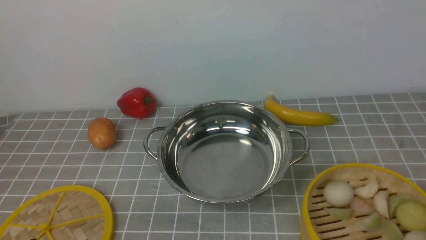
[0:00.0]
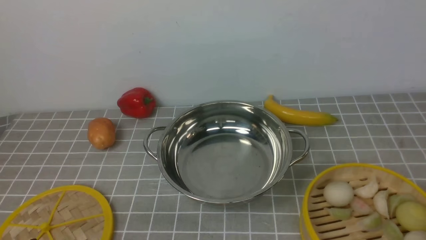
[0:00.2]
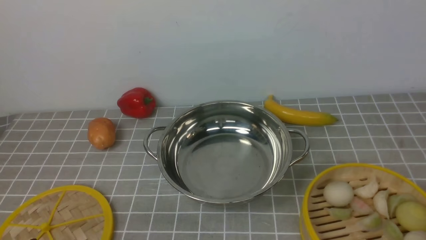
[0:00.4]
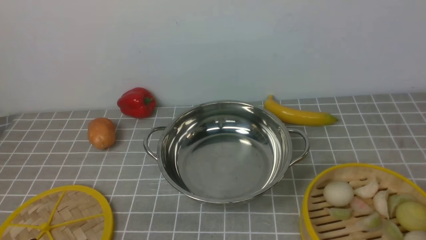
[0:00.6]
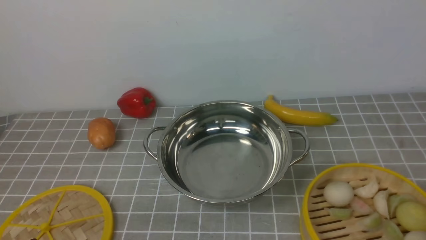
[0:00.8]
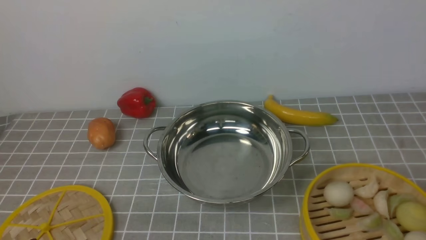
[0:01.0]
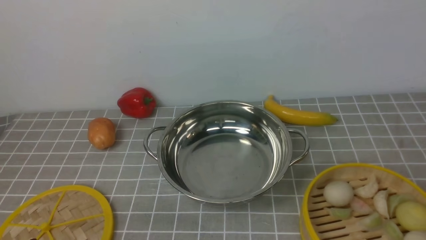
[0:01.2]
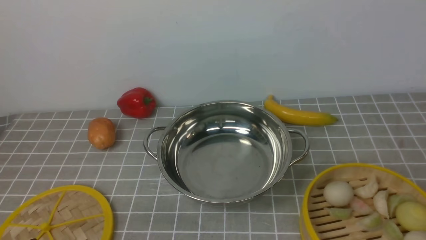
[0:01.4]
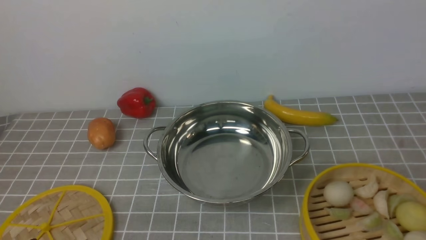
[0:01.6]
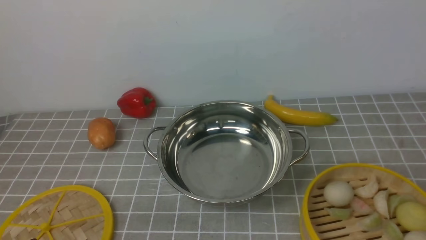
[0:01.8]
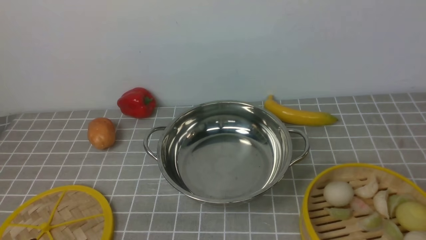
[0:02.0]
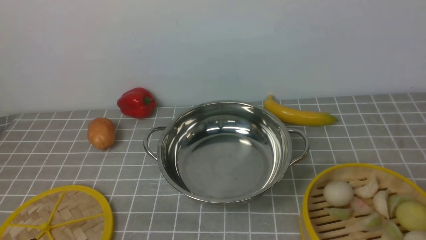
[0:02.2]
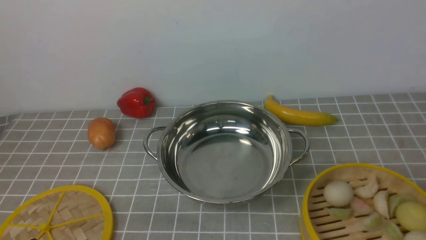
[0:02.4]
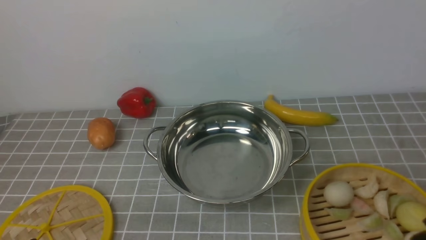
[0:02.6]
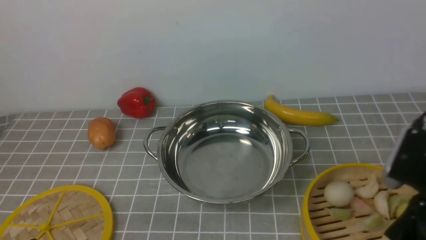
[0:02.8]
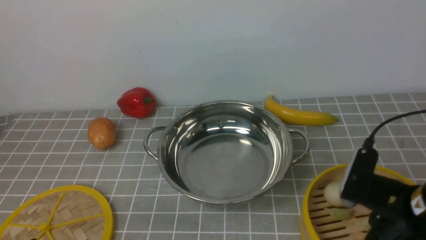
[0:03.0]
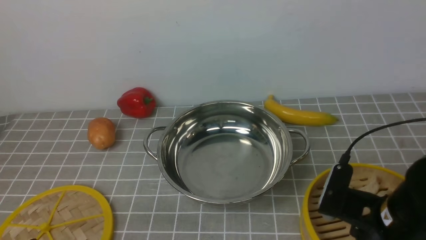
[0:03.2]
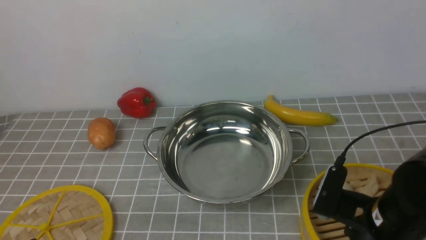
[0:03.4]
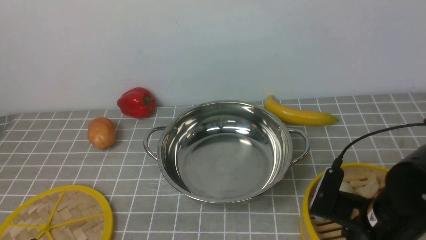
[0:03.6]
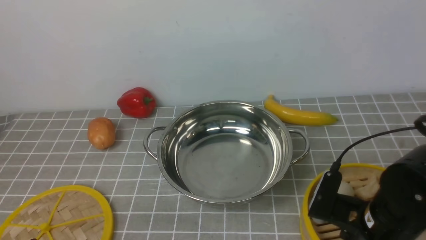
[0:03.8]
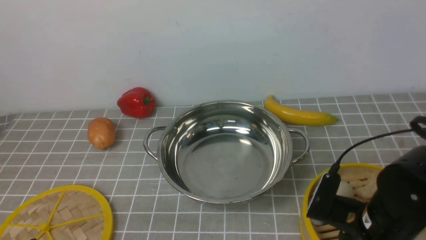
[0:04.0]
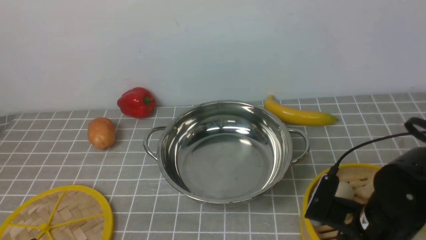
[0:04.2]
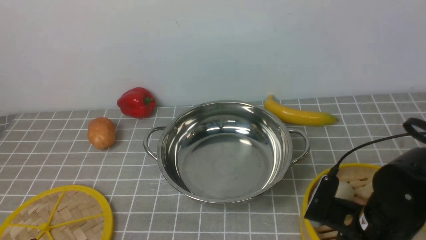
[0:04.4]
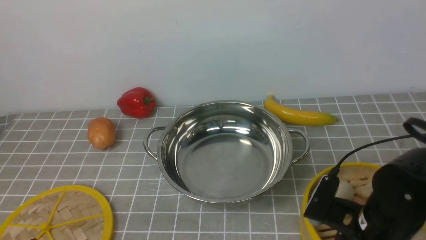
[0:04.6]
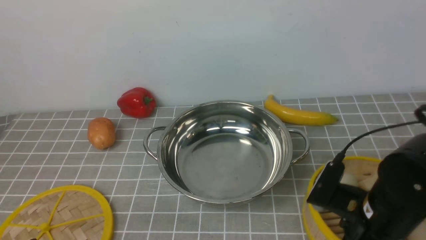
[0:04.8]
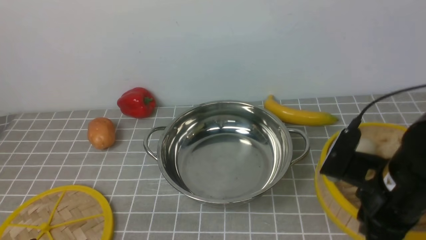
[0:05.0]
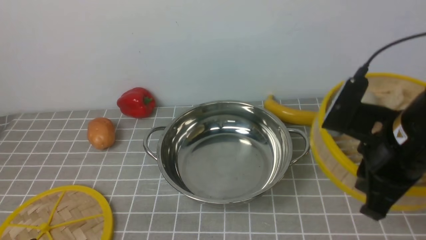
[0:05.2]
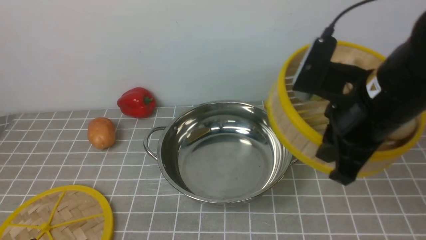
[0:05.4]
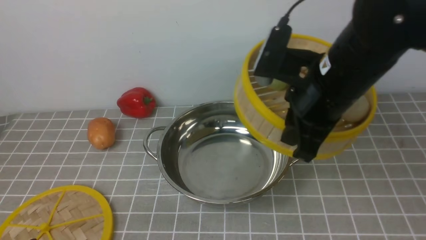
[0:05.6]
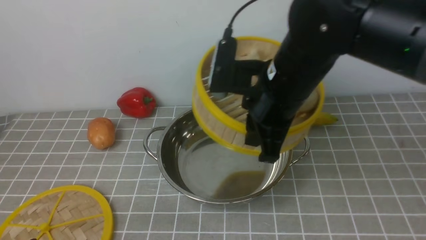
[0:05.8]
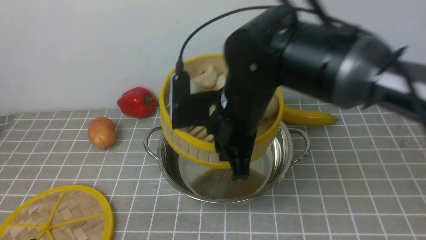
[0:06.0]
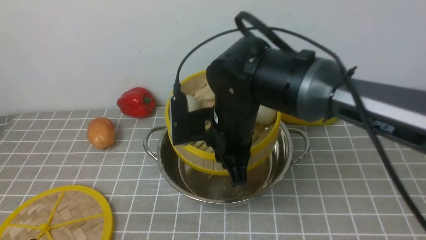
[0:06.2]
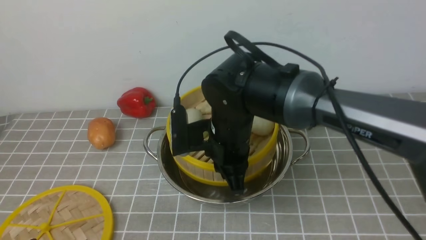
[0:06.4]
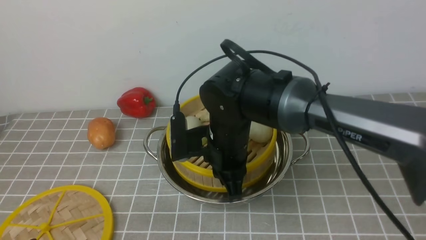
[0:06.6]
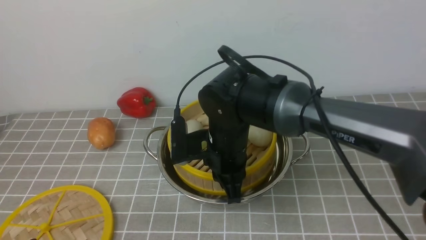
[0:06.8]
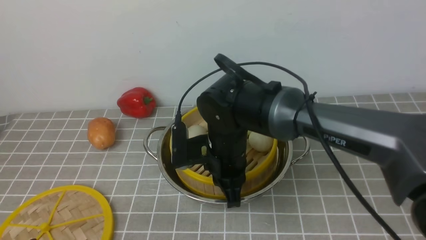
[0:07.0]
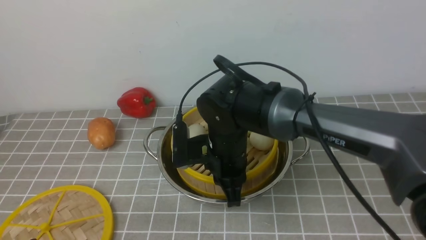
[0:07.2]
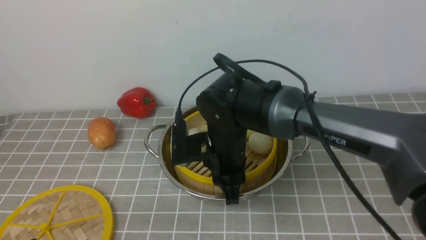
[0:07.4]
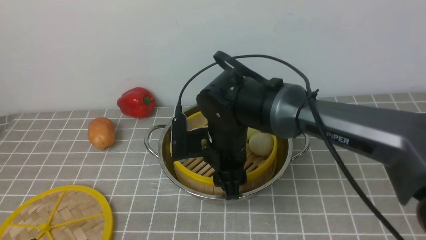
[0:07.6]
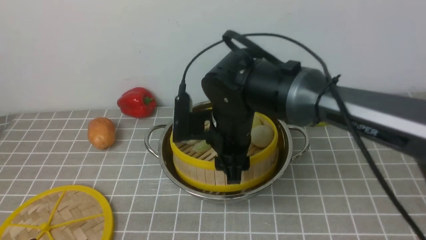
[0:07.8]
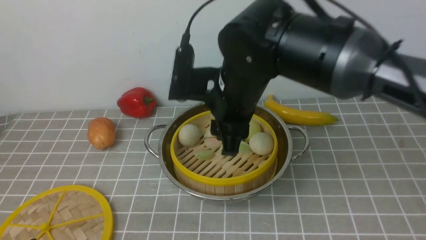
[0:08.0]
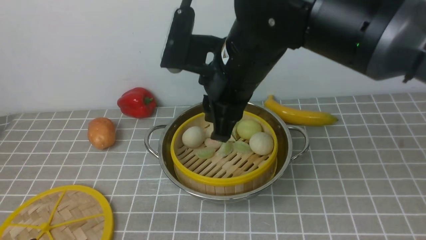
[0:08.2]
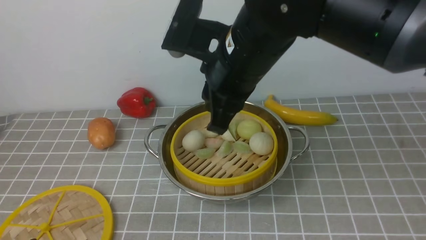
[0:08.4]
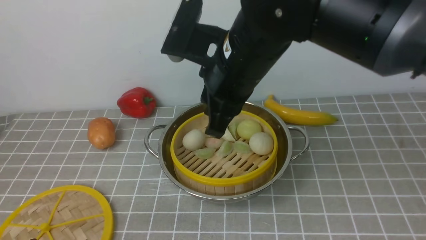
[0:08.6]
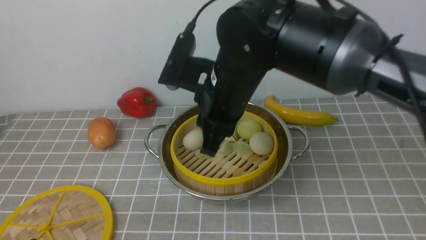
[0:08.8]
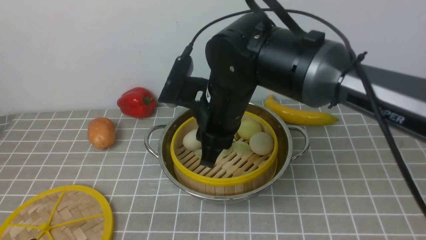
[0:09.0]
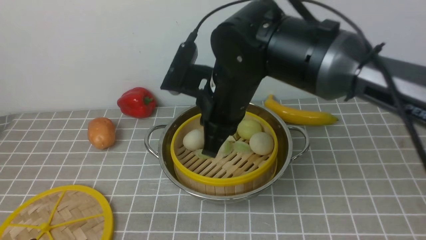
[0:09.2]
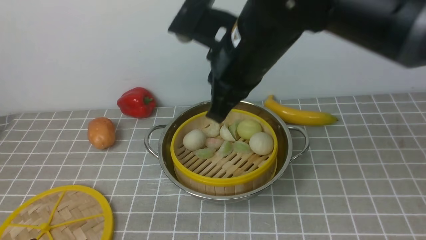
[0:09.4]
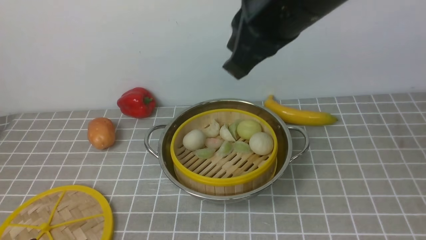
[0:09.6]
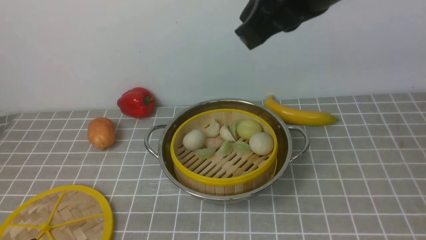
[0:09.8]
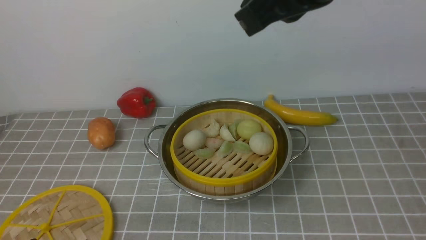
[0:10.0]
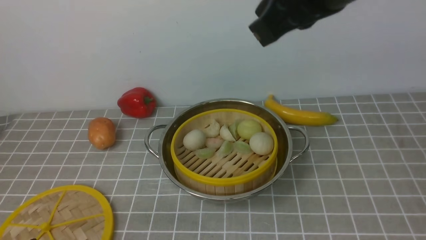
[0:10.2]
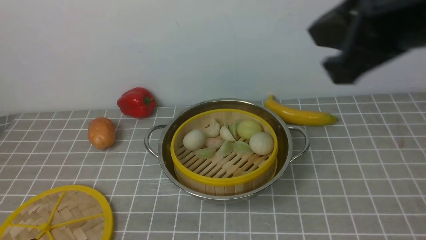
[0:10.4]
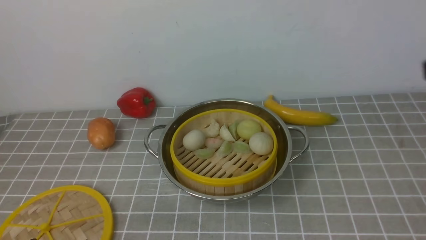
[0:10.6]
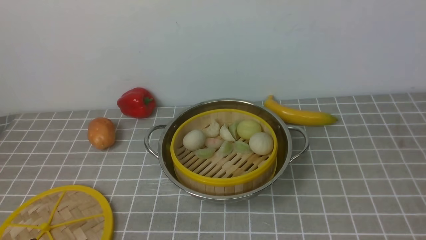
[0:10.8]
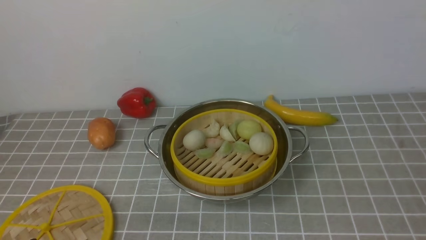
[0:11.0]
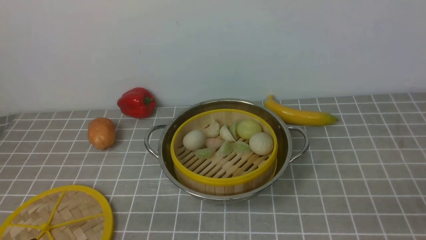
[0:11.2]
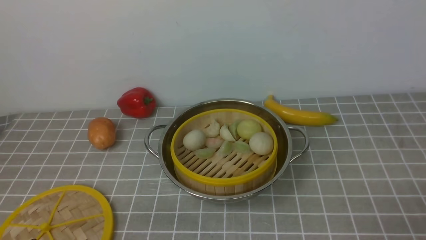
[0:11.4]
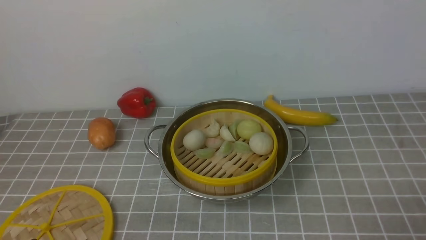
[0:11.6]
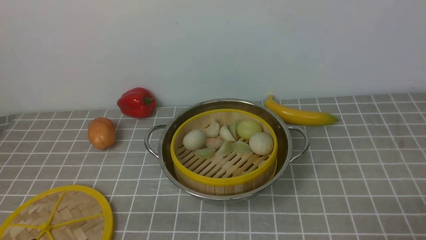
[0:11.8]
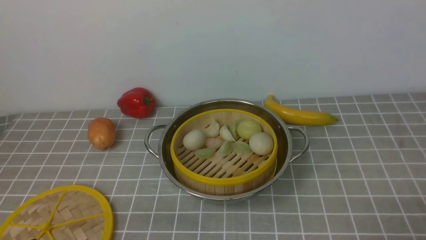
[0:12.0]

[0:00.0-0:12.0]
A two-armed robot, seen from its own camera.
Task of the whole recording: place the steamer in the pot on the grey tablecloth, and put the lid on the steamer.
Step, 0:00.0 to 0:04.8: use the right arm to lift the steamer closest to it.
Step, 0:05.0 to 0:07.8: use the right arm to put the steamer into the iron steamer pot in the middle.
0:01.6 to 0:03.0: The right gripper travels forward, downward and to the left by about 20 cm.
0:03.0 to 0:04.4: The right gripper goes roughly 10 cm downward.
0:04.4 to 0:06.0: The right gripper heads upward, to the left and forward, covering about 20 cm, and closes.
0:06.0 to 0:07.6: The right gripper is displaced downward and to the left by about 10 cm, and opens its fingers.
0:07.6 to 0:09.0: The right gripper travels upward by approximately 10 cm, and closes its fingers.
0:09.0 to 0:10.4: The right gripper is displaced upward, to the right and backward by roughly 25 cm, and closes up.
0:10.4 to 0:12.0: The right gripper goes roughly 35 cm downward, to the right and backward, and opens its fingers.

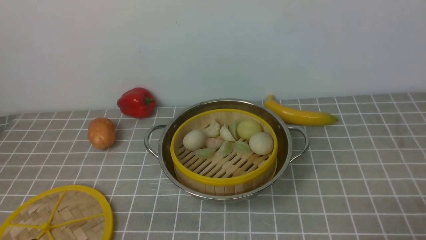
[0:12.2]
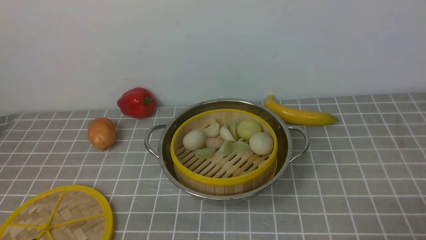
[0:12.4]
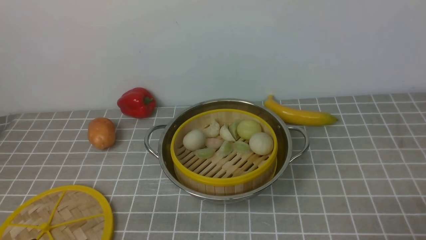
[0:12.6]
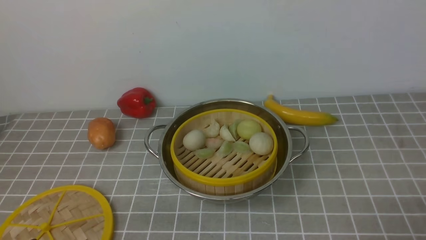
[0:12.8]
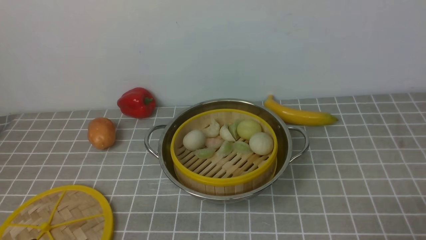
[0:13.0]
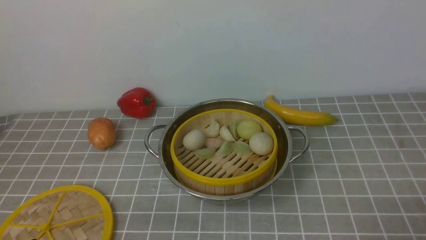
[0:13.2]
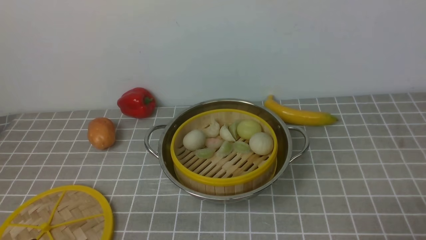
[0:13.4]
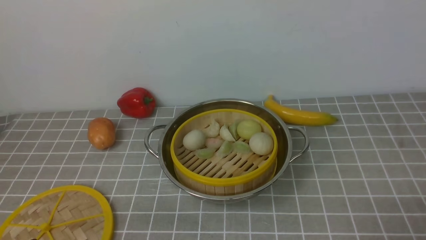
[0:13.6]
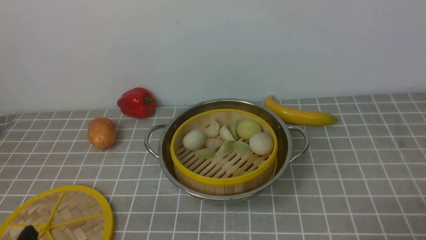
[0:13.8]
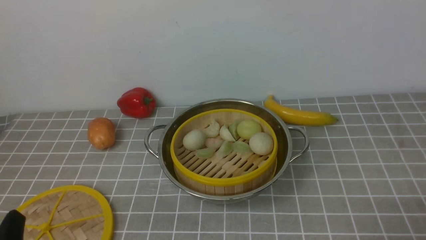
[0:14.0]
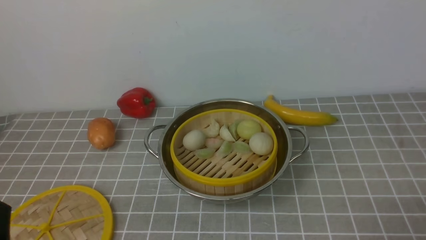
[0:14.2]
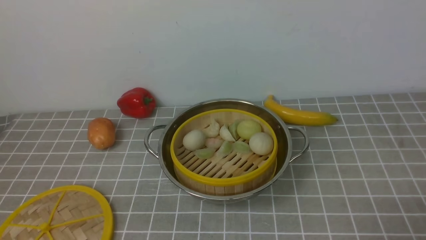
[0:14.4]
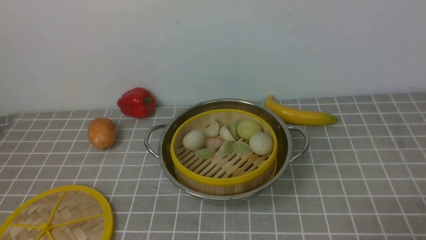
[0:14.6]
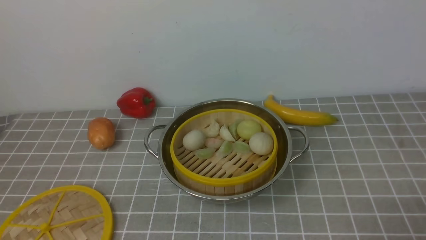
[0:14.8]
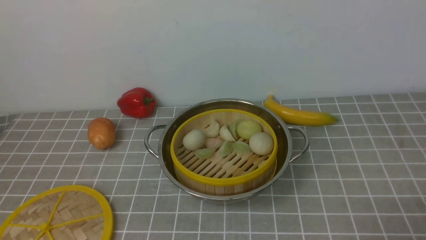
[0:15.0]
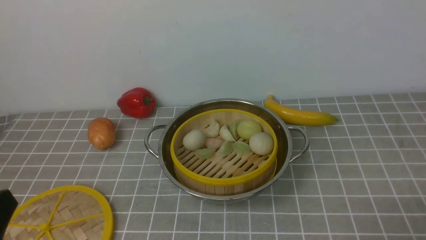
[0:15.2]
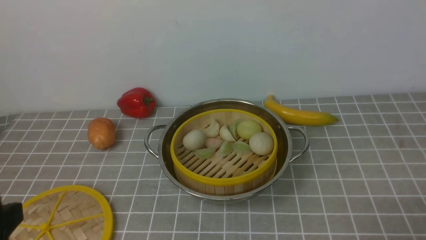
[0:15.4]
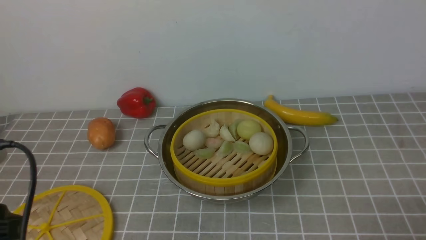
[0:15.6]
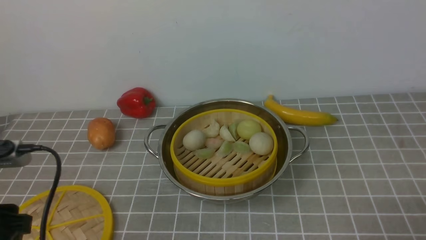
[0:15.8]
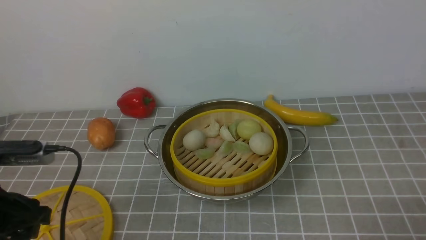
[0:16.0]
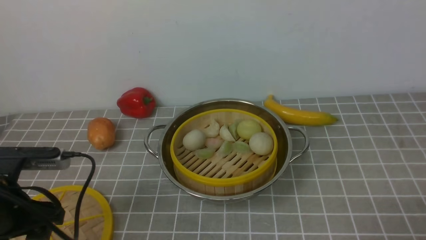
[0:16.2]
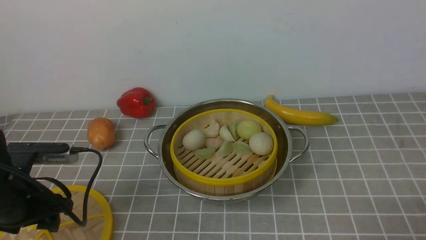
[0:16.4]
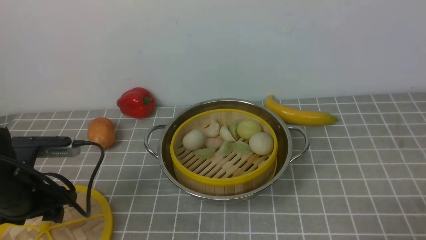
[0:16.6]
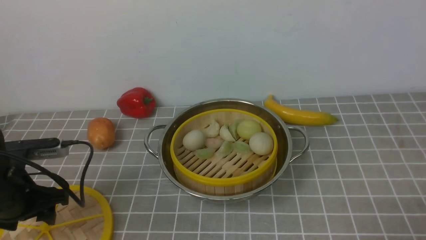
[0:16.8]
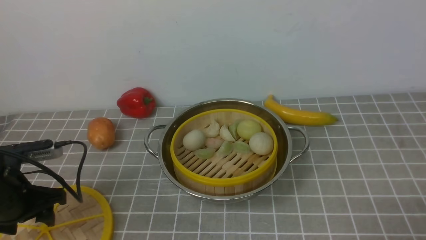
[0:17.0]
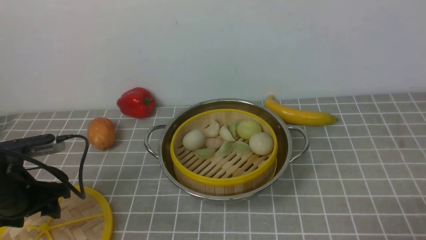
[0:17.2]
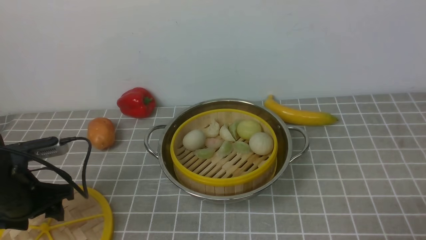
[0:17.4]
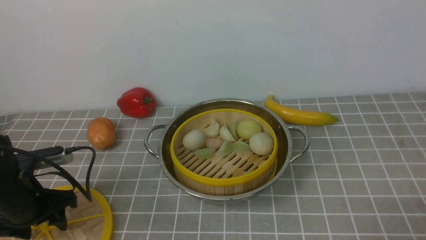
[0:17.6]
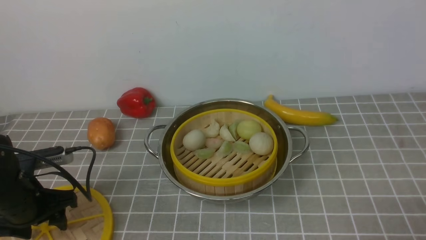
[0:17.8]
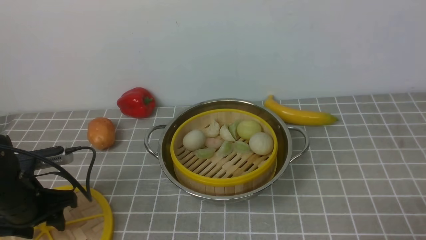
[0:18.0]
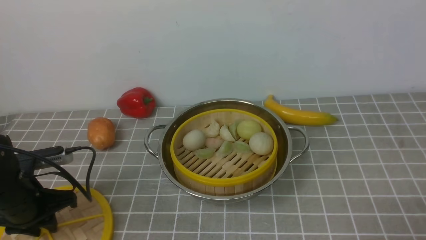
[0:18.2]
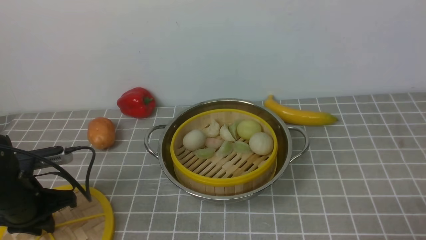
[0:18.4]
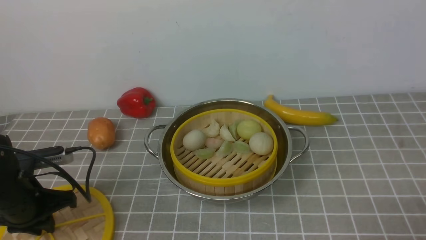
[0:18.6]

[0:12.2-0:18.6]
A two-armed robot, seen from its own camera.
Task of the whole recording: place the steamer in the pot on the grey tablecloth, and put the lid on the steamer.
0:13.8 to 0:15.4: The left gripper heads upward, covering roughly 10 cm.
0:15.4 to 0:17.0: The left gripper moves forward and downward, about 20 cm.
0:17.0 to 0:18.6: The left gripper closes.
